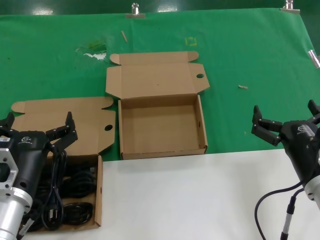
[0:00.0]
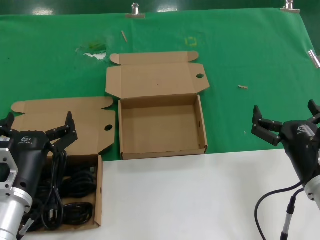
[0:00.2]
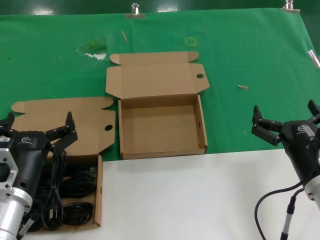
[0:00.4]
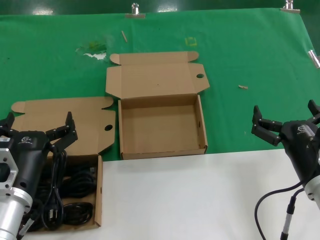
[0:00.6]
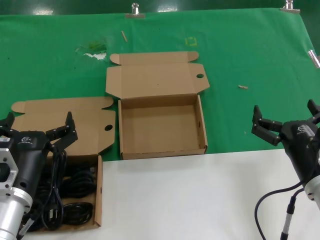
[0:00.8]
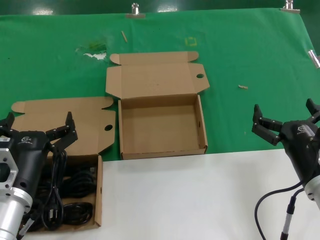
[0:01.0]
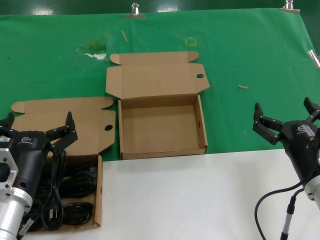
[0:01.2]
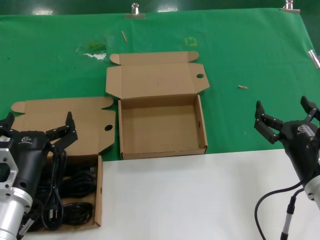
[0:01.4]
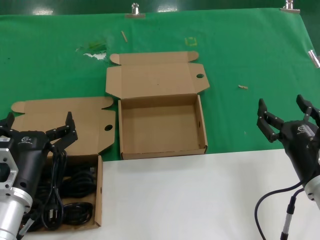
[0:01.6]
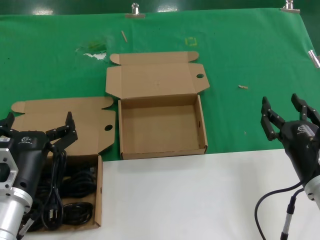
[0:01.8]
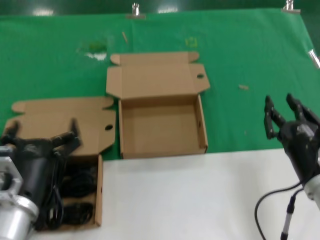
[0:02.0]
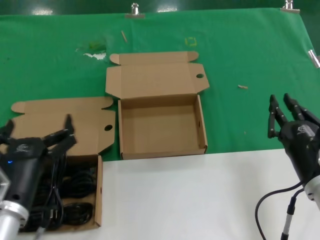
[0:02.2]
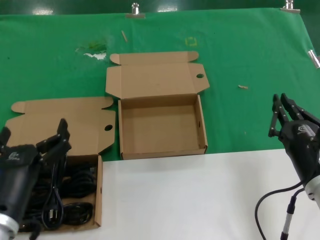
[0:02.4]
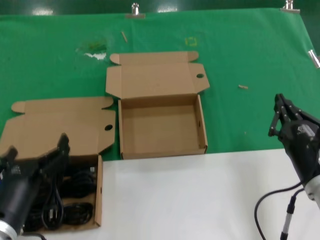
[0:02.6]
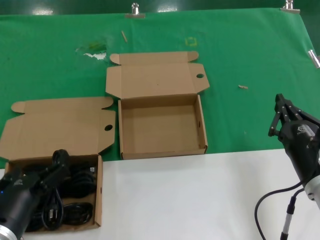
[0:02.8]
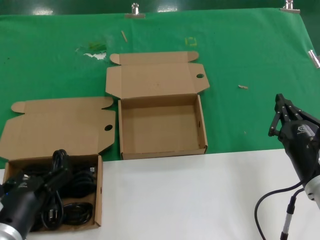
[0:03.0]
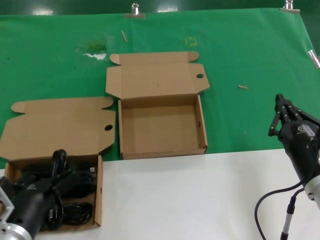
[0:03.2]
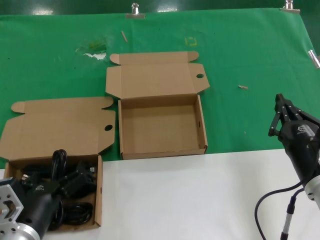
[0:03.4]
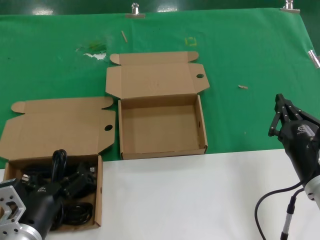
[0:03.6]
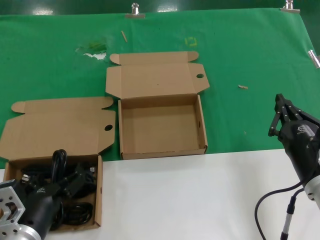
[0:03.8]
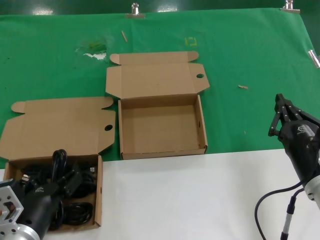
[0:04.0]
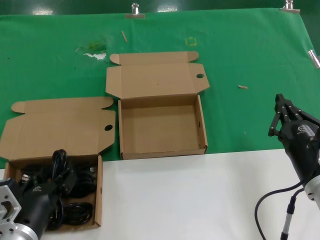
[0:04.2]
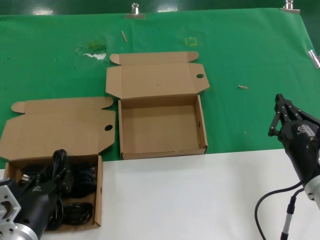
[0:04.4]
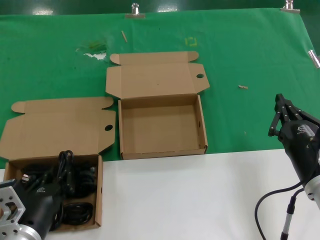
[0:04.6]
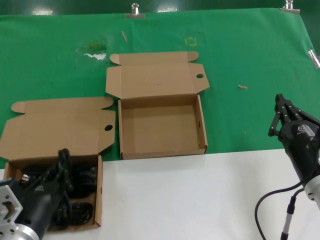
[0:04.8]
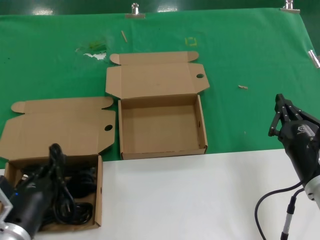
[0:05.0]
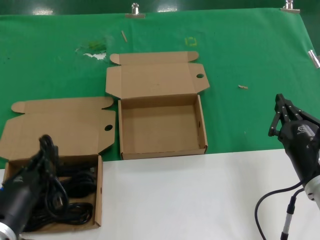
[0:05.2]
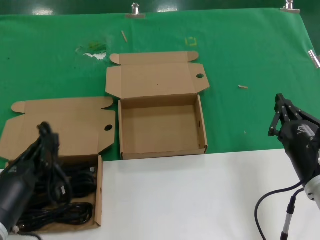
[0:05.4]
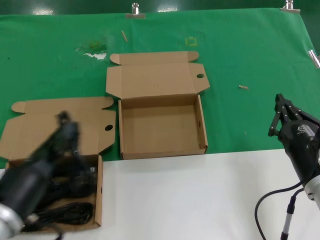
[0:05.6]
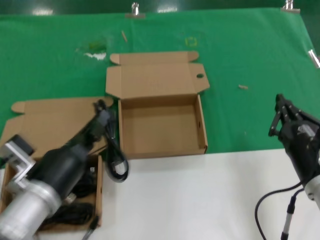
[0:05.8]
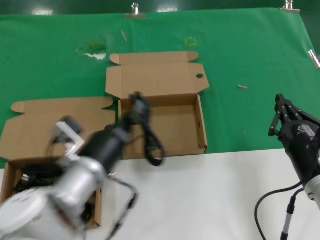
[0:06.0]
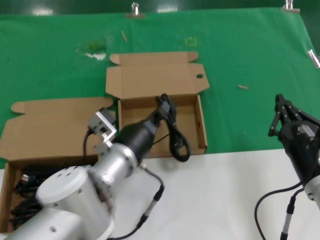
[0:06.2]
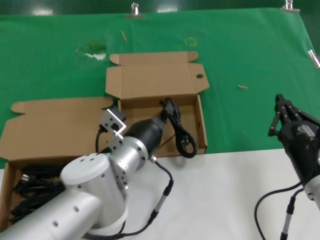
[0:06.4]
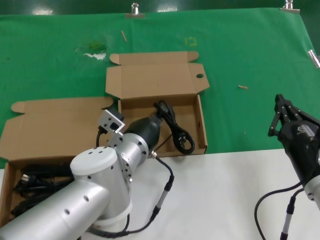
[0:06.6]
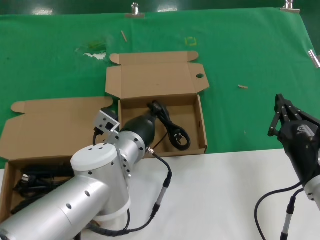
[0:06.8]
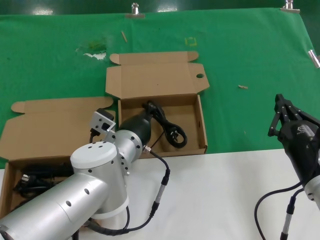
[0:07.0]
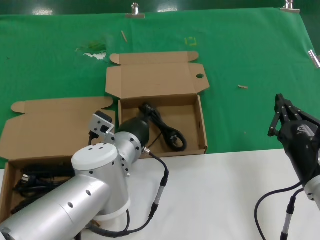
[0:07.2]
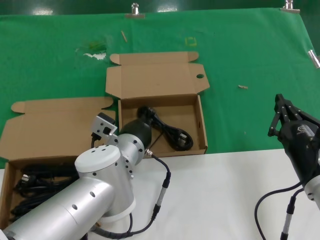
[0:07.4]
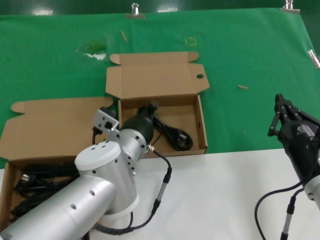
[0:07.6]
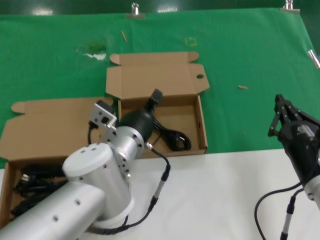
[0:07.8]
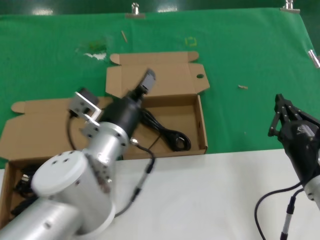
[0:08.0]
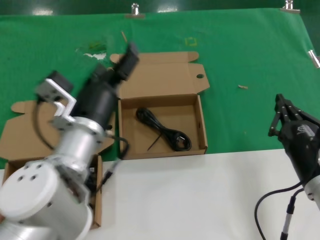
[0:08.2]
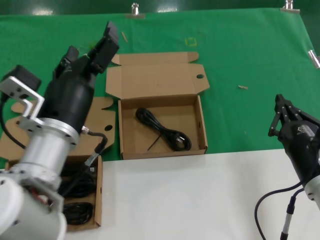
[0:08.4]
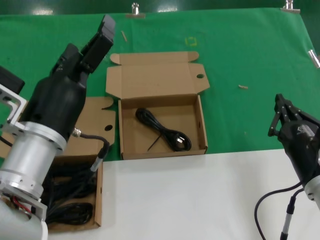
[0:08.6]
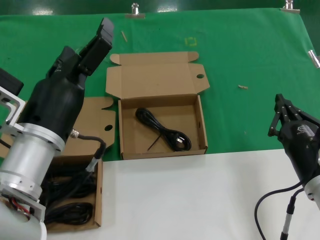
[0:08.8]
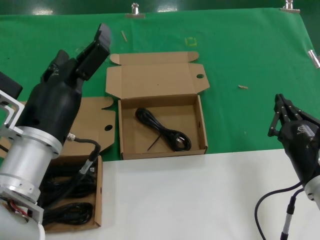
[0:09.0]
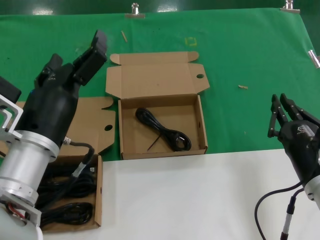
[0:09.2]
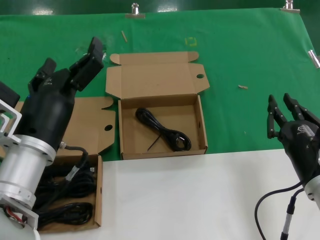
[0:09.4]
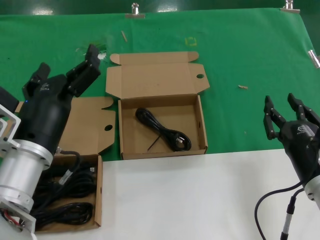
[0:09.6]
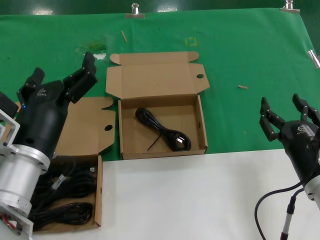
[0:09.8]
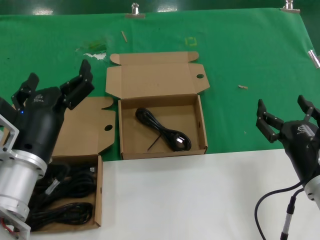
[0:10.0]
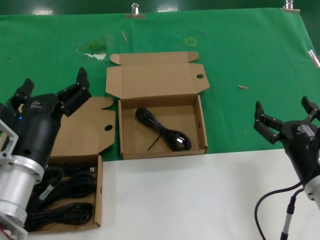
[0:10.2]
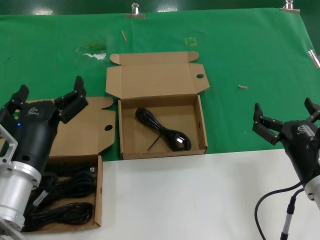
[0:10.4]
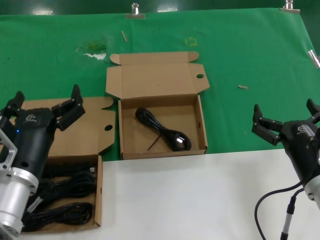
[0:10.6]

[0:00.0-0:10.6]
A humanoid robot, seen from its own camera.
Task of the whole recording: Pick up the power cord from the box containing it and place it in another box.
Step, 0:00.0 to 0:04.6: Grasp the data cable.
Step, 0:04.8 to 0:07.8: Place the data cable in the another box.
0:00.0 to 0:01.6: Neither hand changes place.
0:01.6 to 0:03.0: The left hand shifts by some 5 cm.
0:03.0 to 0:04.6: The hands make only small movements.
0:04.6 to 0:06.0: The left hand shifts about 15 cm to the right, forward and upward.
0:06.0 to 0:07.6: The left hand heads forward and to the right, covering roughly 15 cm.
0:07.6 to 0:09.0: The left hand goes roughly 20 cm backward, to the left and upward.
0:09.0 to 0:10.6: The left hand heads downward, covering about 5 cm.
